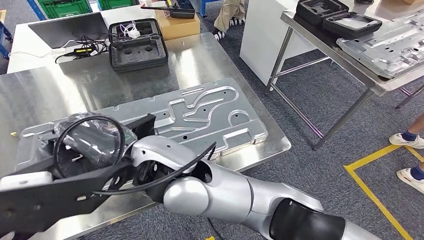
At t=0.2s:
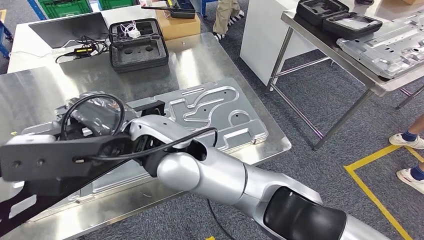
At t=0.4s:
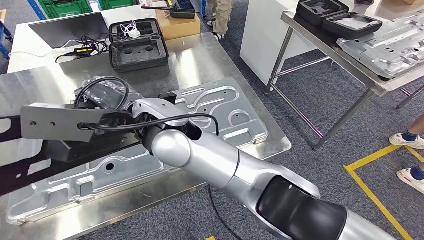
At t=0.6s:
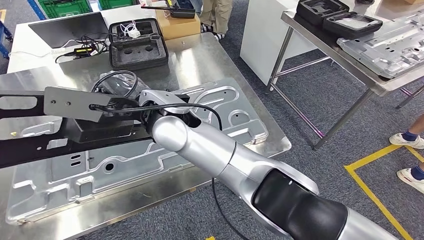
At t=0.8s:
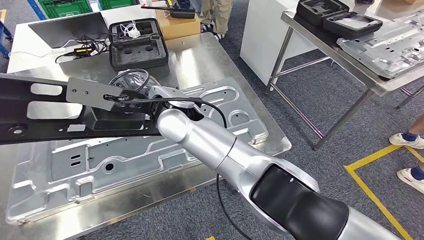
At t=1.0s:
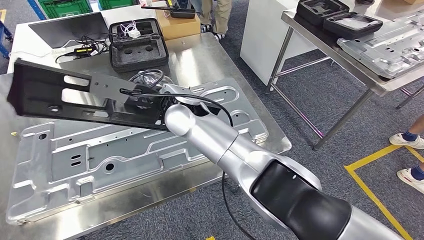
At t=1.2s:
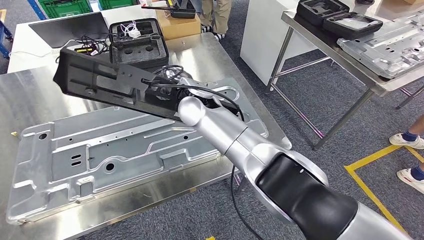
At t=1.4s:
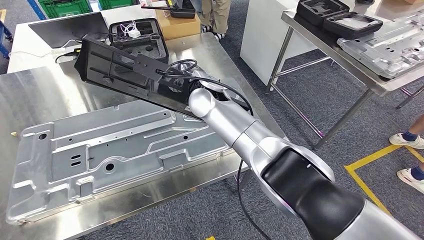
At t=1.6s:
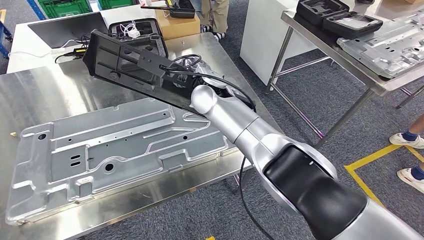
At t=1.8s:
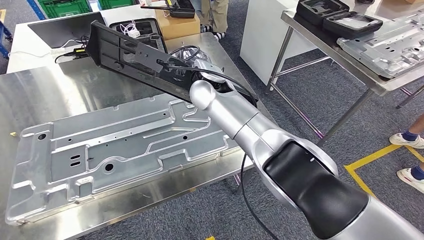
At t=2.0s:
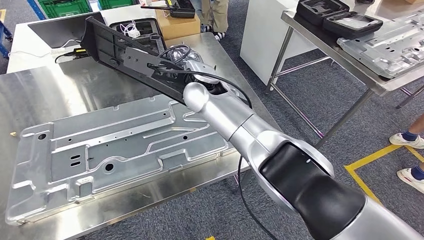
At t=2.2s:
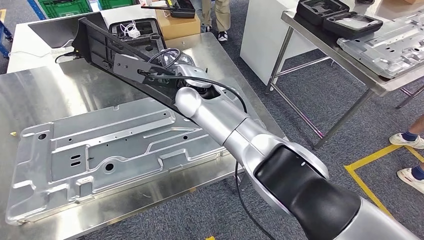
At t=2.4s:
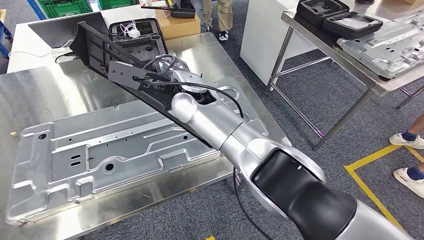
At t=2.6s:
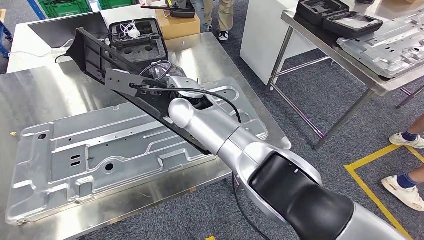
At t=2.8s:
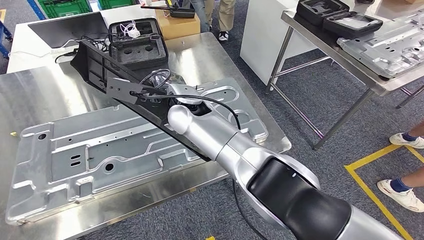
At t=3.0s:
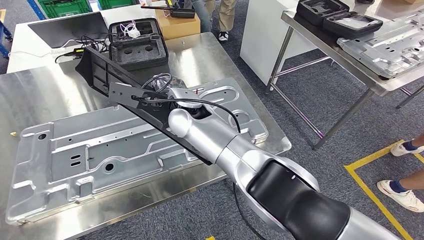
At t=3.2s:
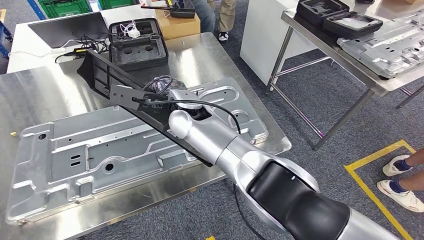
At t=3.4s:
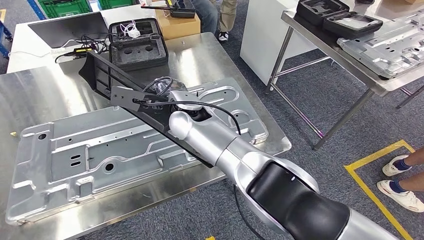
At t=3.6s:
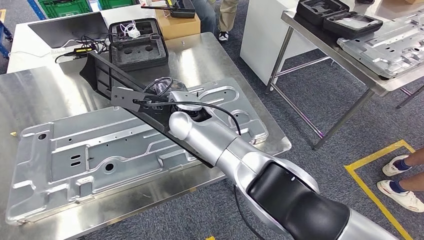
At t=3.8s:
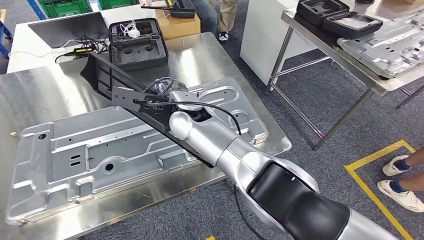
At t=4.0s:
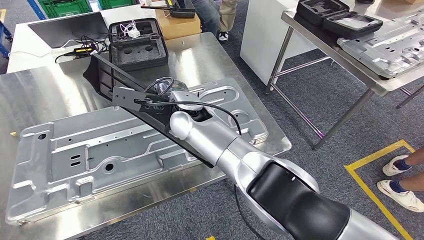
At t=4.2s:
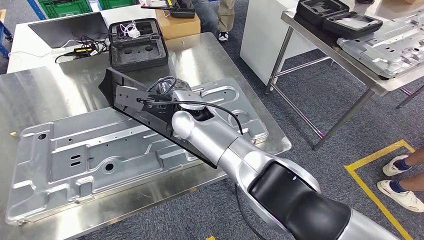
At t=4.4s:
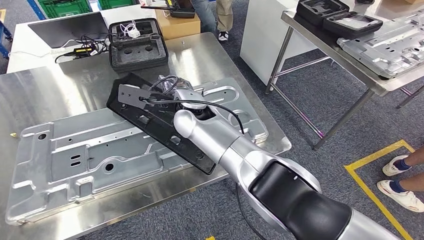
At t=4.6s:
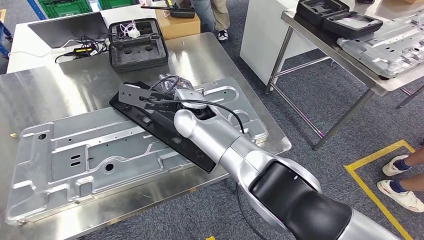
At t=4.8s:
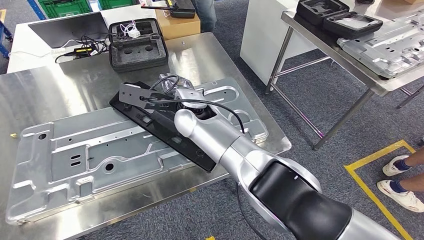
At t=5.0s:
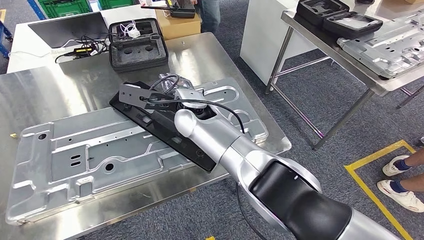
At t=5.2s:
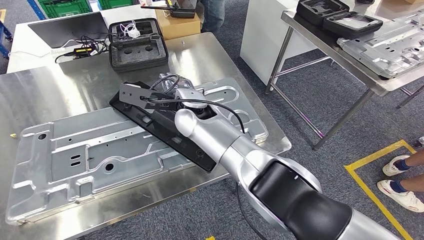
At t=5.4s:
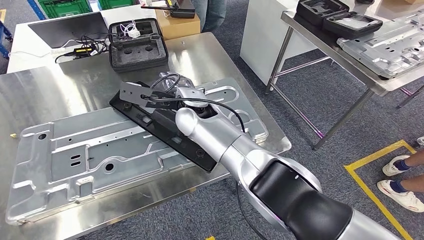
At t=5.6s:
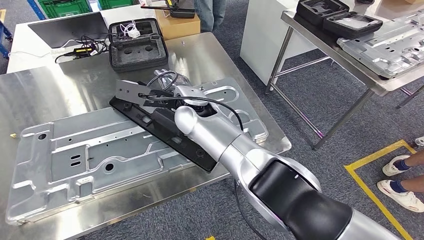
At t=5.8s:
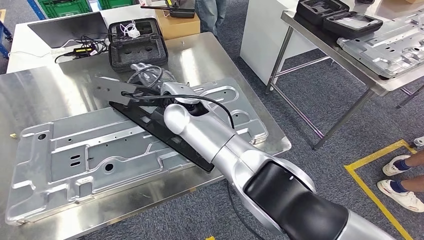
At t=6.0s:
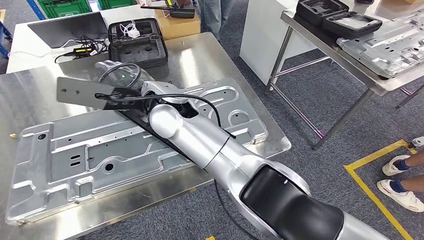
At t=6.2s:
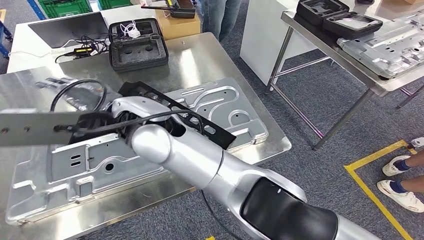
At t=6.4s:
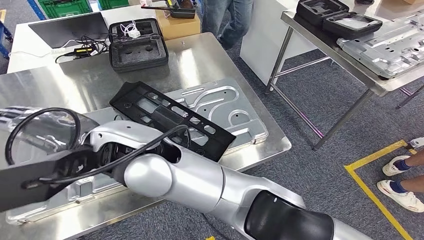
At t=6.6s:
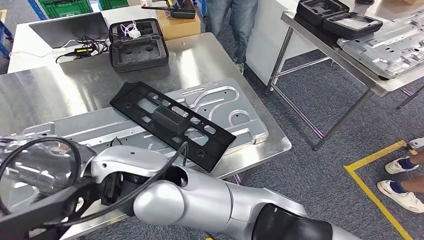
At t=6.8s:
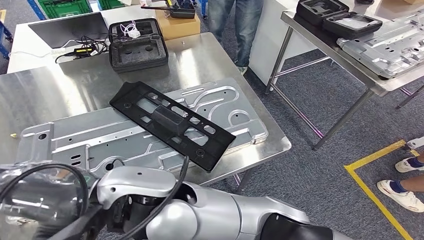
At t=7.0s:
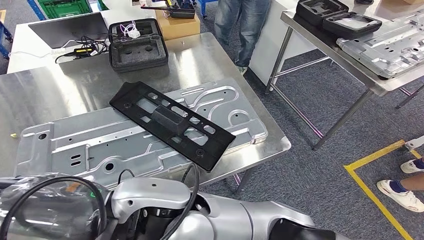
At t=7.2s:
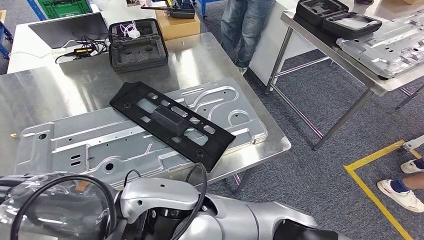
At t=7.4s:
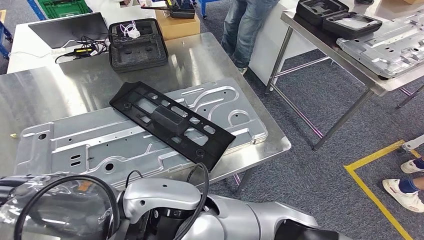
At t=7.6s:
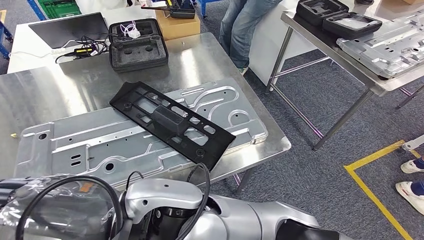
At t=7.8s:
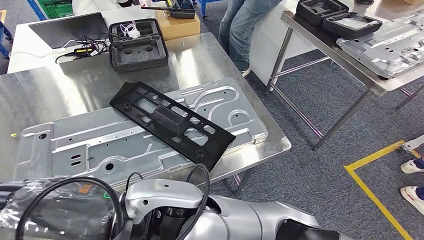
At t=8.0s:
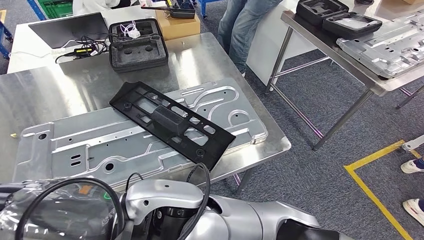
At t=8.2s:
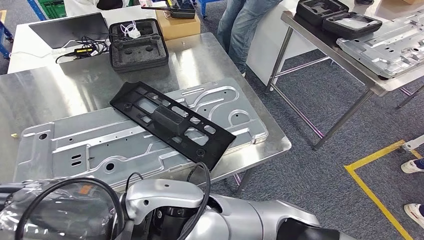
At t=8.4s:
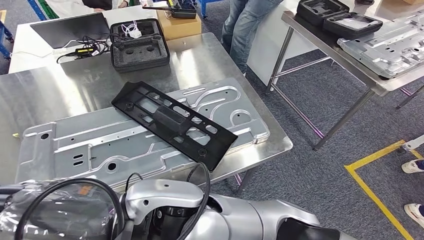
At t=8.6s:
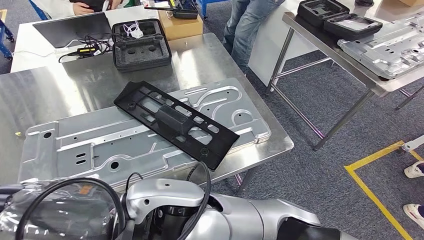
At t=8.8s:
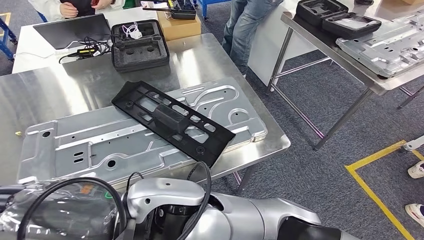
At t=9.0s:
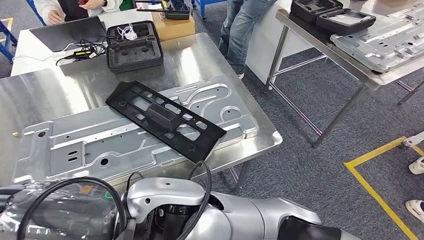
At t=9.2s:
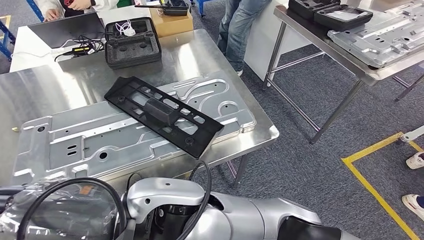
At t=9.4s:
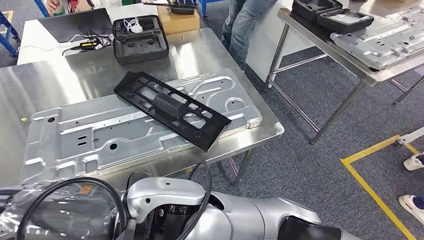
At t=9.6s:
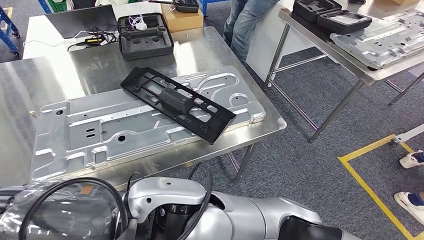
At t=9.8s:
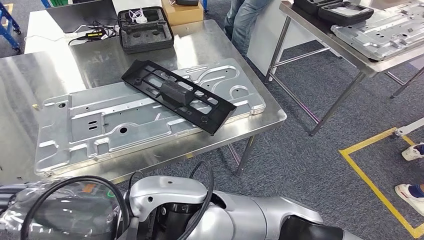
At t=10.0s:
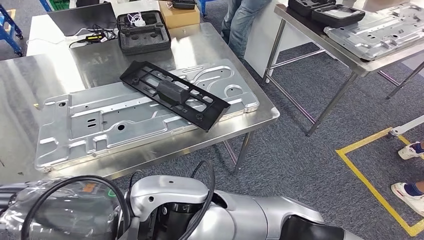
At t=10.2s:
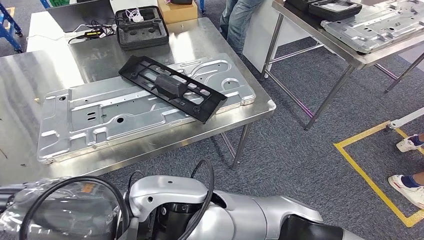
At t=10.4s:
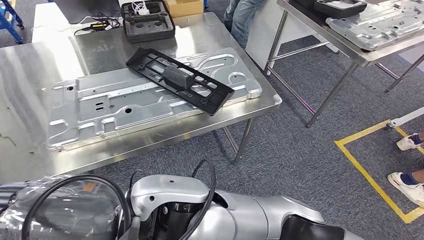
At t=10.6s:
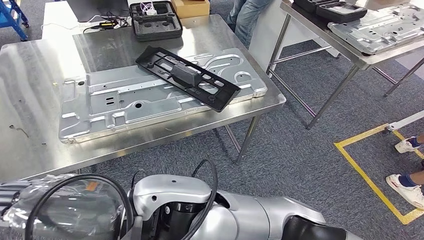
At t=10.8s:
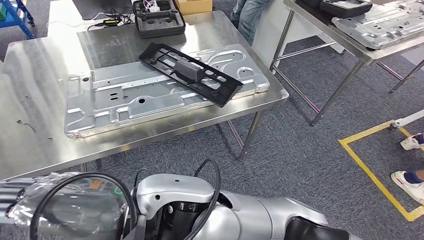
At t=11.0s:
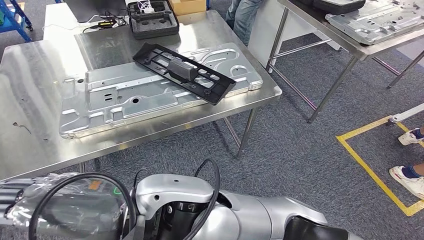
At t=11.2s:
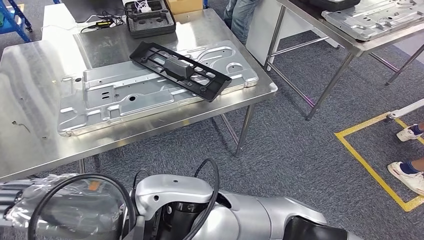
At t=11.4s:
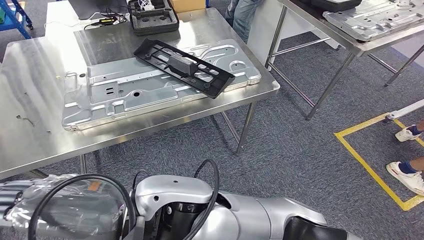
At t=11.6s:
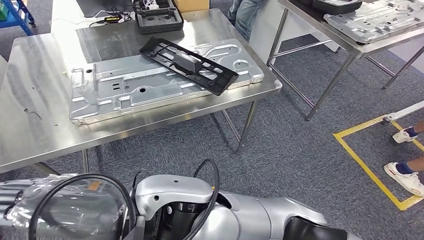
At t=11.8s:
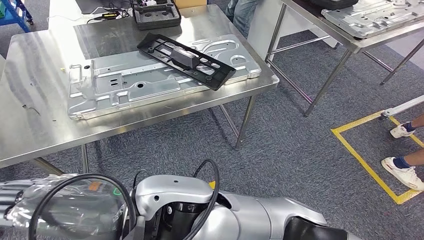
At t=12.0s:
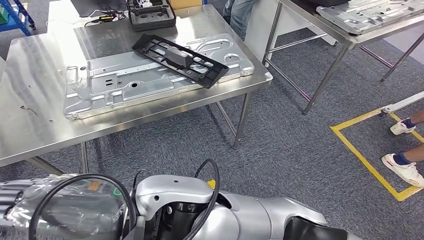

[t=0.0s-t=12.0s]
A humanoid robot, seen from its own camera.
Step, t=0.0s to t=7.6s: Insert the large material into the corresponding slot on the workbench.
t=3.0s to t=4.4s: There are only small adjustments of the hands.
t=4.4s to t=6.0s: The right hand is displaced to the left and upward by roughly 10 cm.

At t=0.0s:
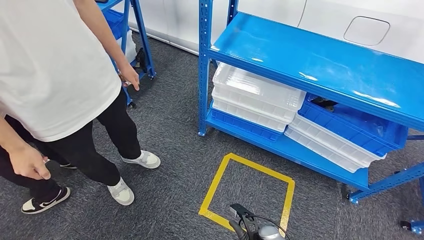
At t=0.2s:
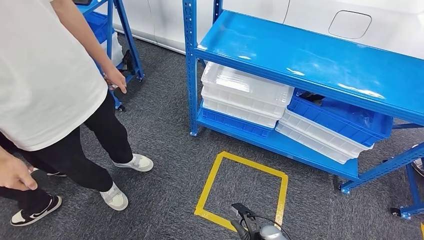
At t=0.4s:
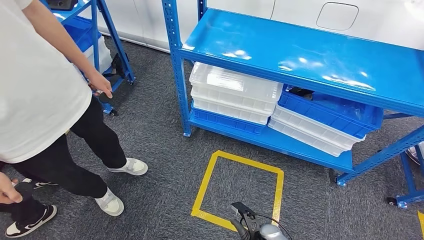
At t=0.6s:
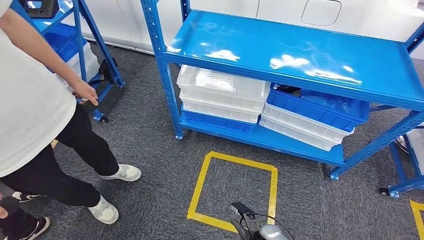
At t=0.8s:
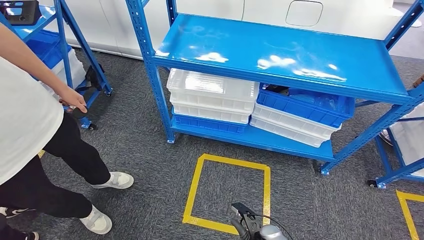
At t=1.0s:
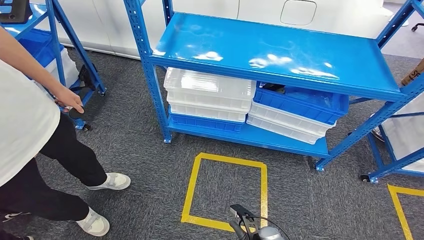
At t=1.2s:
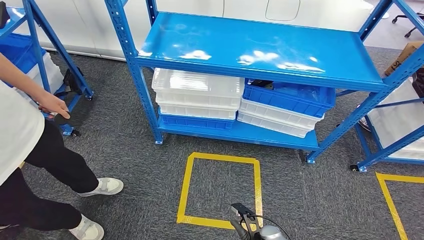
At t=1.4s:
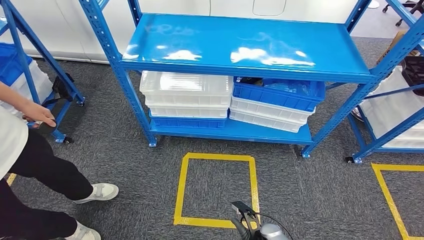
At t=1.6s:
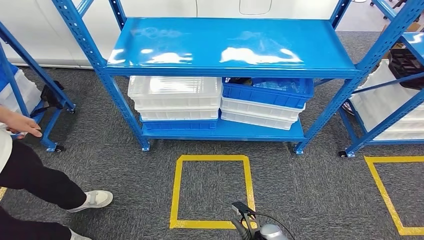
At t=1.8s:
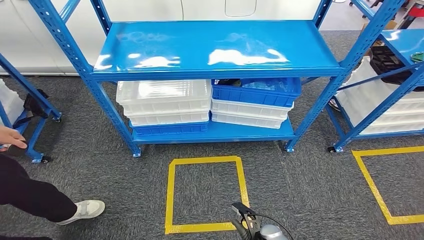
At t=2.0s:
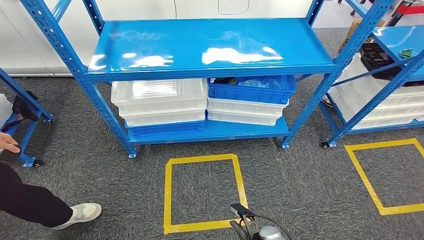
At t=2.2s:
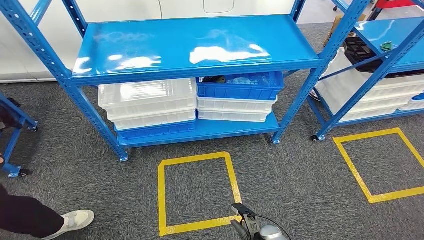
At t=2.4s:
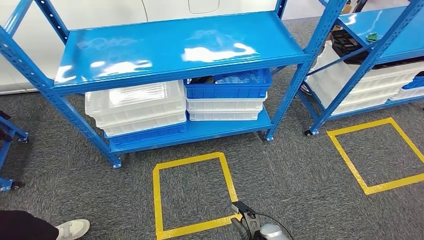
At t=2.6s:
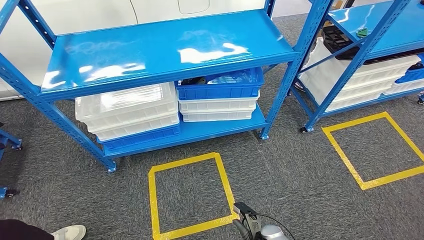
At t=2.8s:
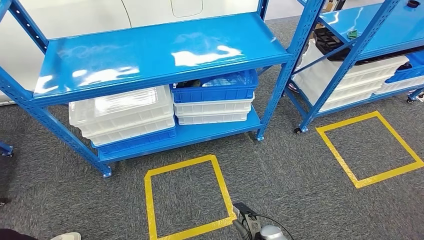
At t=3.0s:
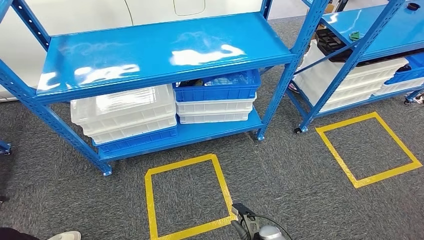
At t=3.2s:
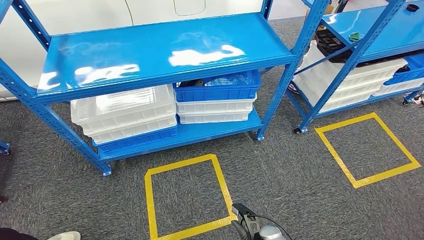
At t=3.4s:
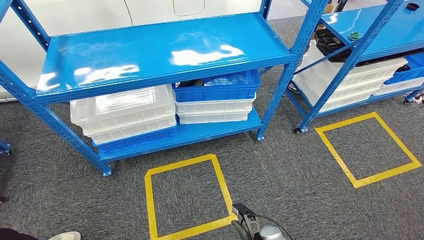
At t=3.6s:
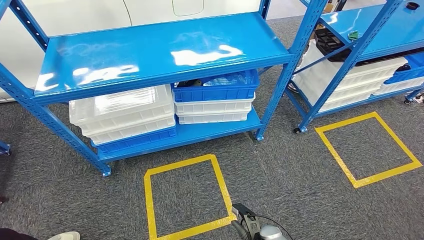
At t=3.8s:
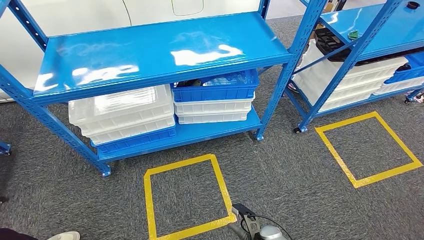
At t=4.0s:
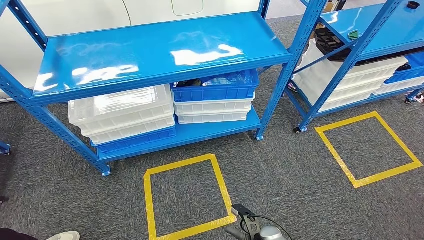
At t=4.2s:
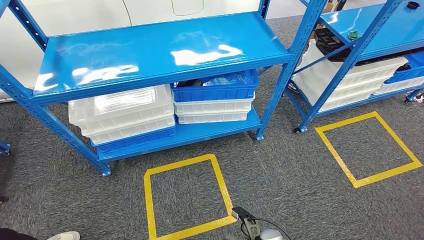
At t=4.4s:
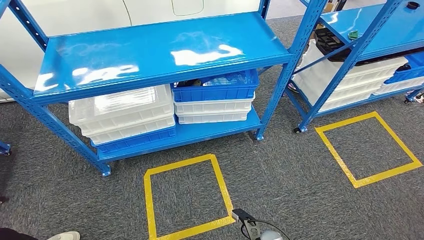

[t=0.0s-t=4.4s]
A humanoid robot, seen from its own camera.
Step, t=0.0s to t=4.4s: Move to the initial position of the shelf.
t=3.0s to t=4.4s: The two hands keep their place.
